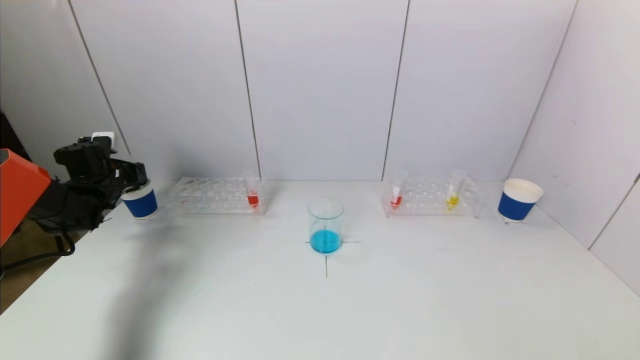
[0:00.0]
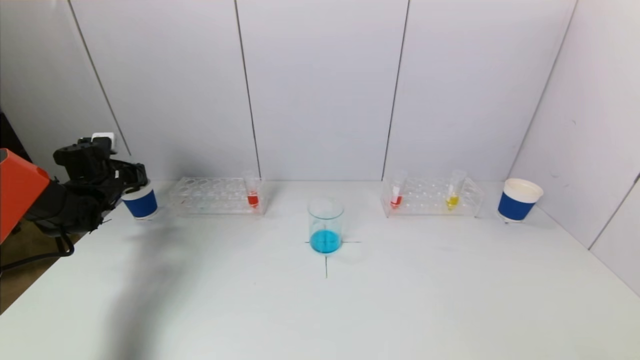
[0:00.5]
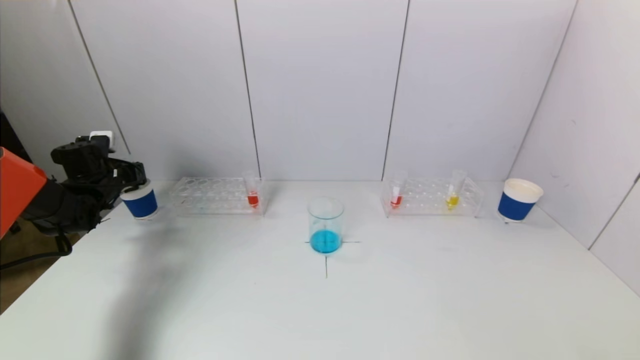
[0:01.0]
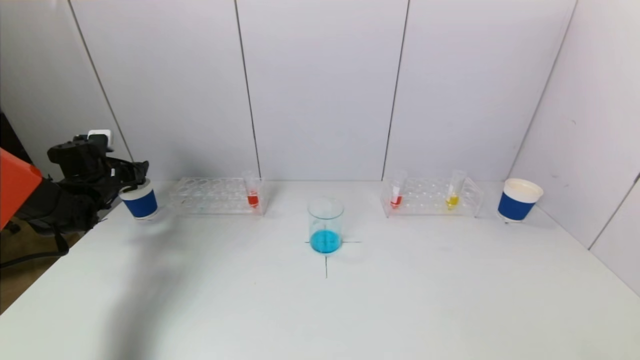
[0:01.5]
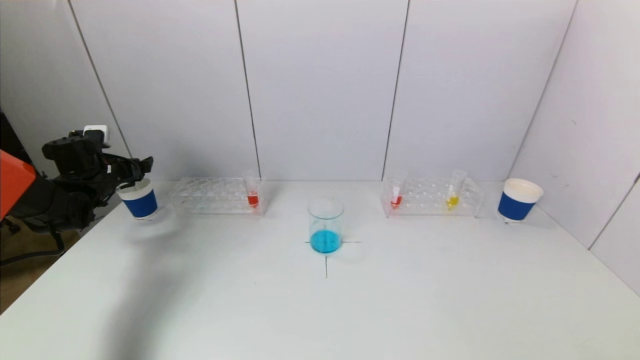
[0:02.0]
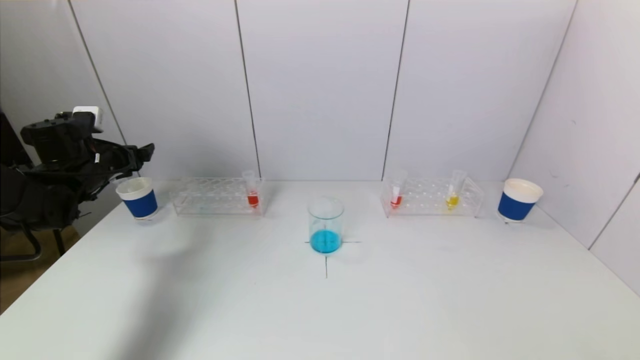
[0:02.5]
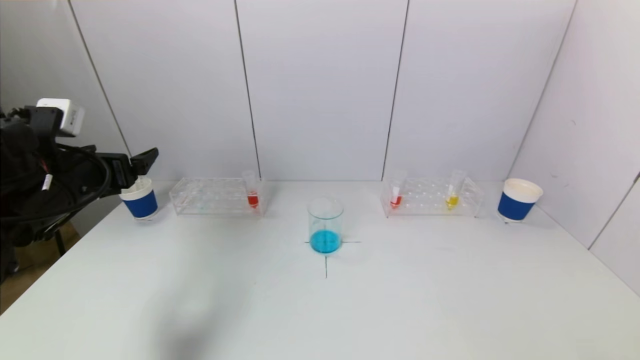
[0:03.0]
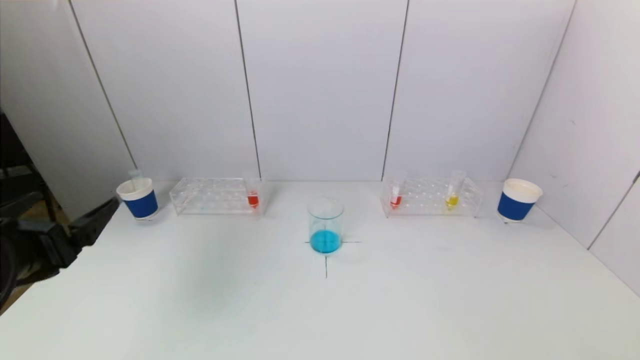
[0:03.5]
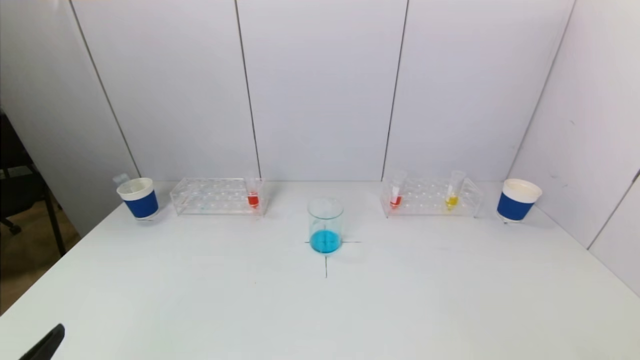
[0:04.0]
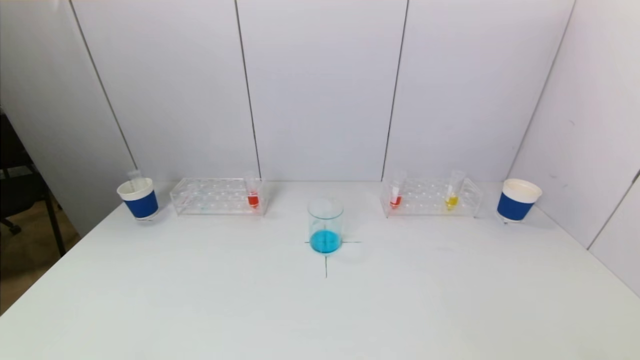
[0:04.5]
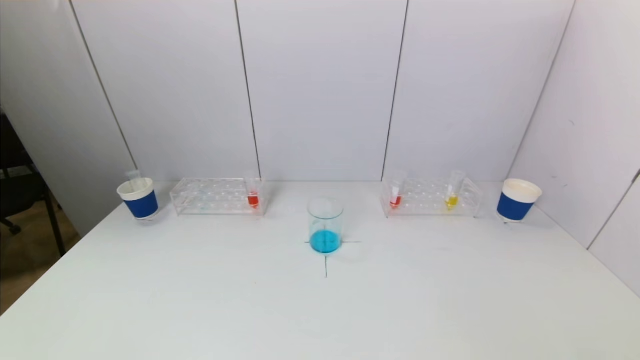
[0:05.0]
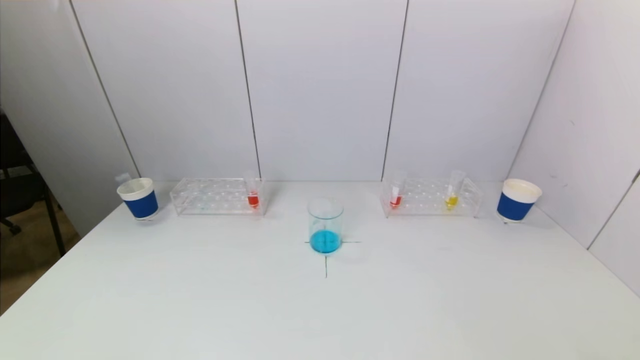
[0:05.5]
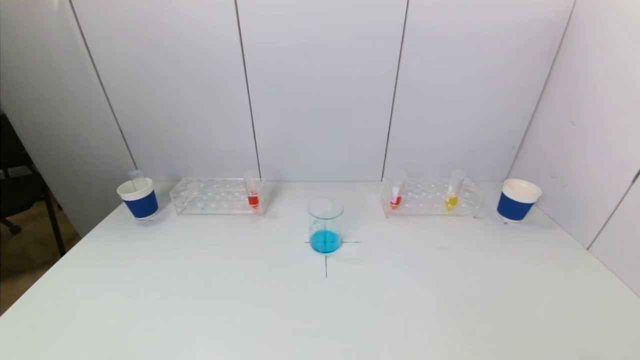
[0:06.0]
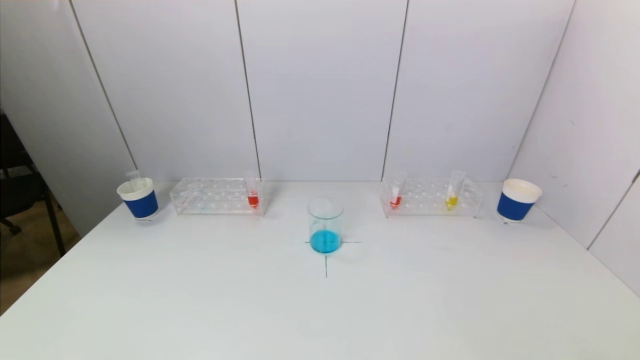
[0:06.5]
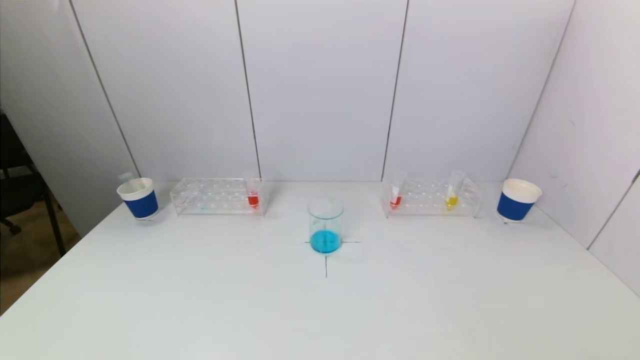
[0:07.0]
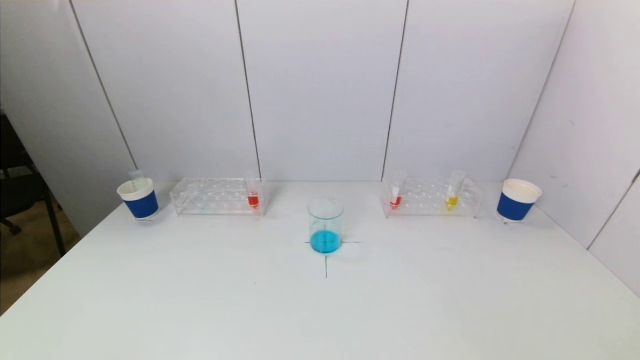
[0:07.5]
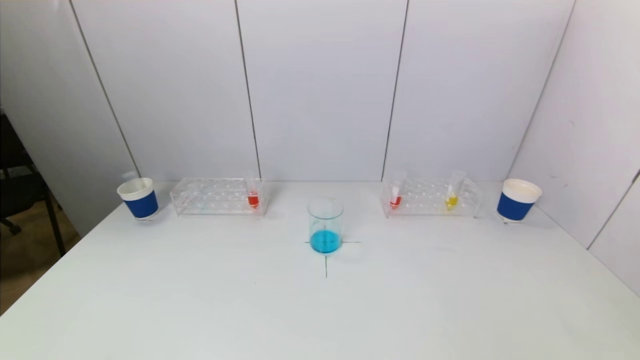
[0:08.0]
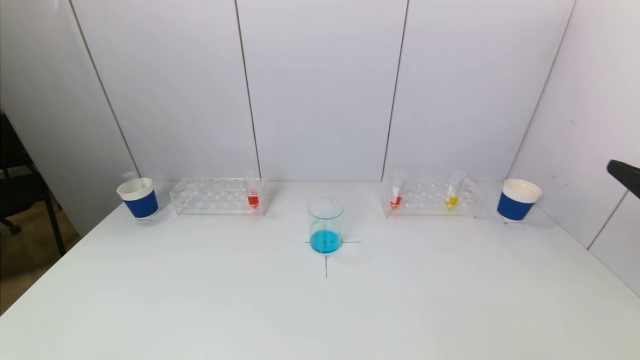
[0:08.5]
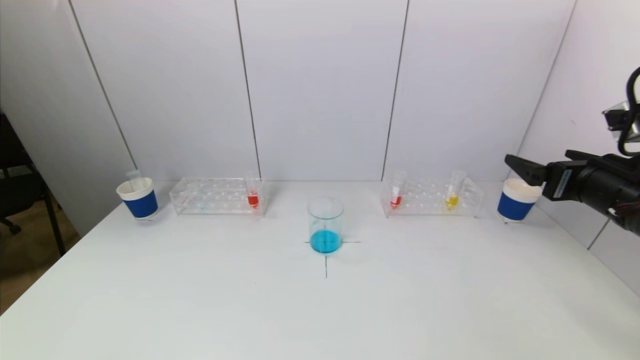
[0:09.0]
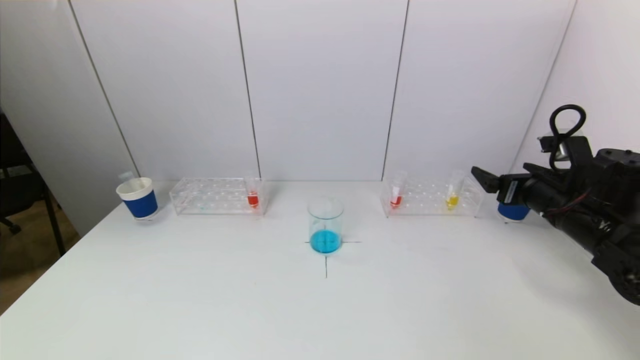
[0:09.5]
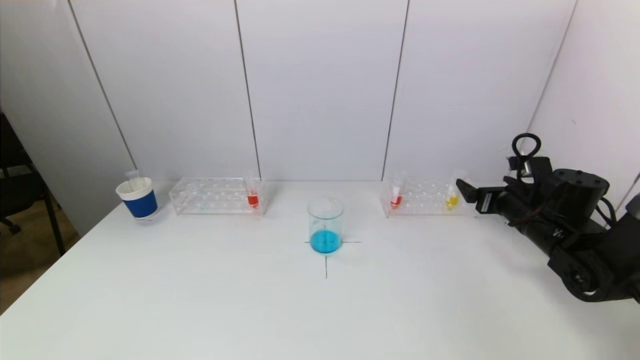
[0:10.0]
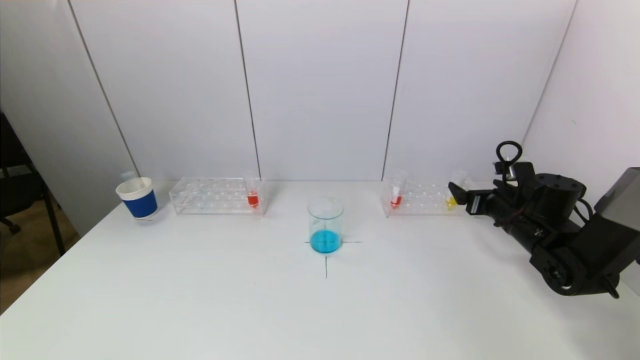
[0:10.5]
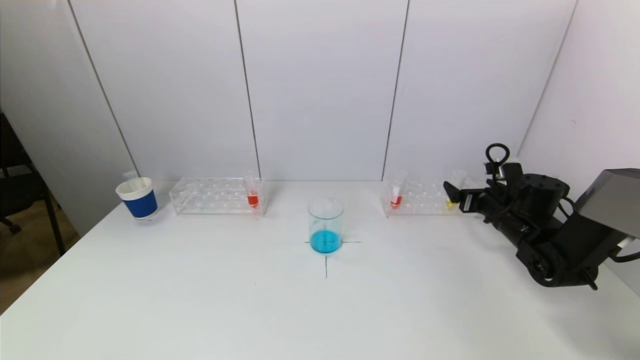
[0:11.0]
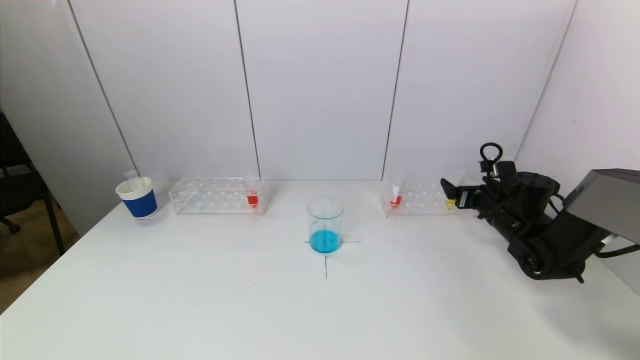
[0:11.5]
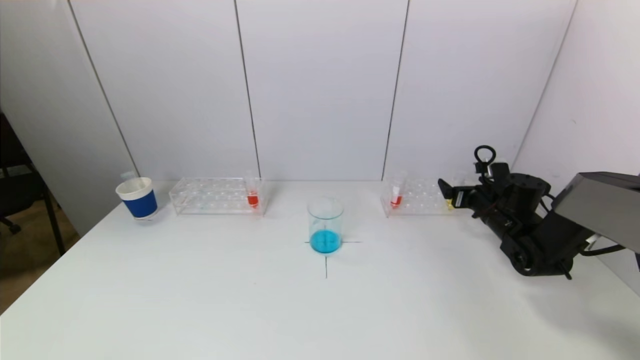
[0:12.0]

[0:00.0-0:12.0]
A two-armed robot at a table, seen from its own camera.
Task of the whole recording: pick up a test tube with pigment on left test tube rack and a test tube with pigment on right test tube rack by grippers and pour them into the beaker.
0:00.0 to 0:02.0: The left gripper opens up.
0:02.0 to 0:04.0: The left gripper goes about 40 cm backward.
0:08.0 to 0:10.0: The right gripper shifts roughly 35 cm forward and downward.
0:10.0 to 0:12.0: The right gripper travels forward and downward by roughly 10 cm.

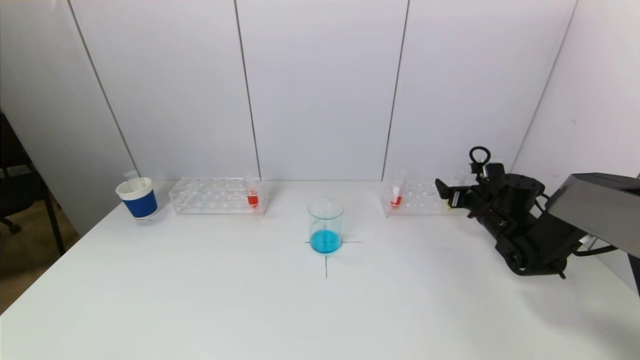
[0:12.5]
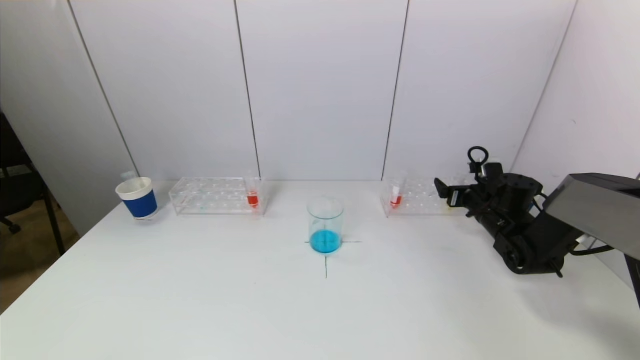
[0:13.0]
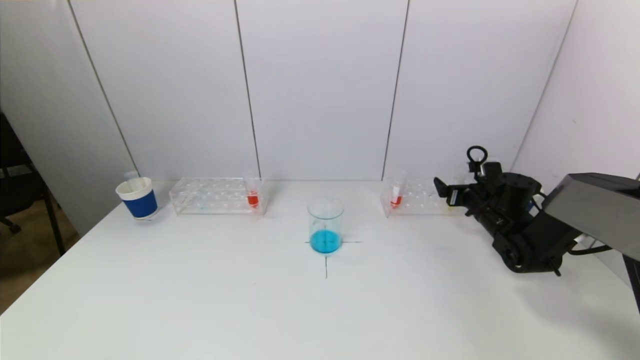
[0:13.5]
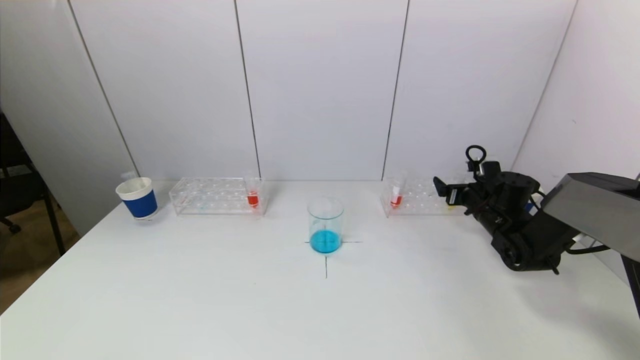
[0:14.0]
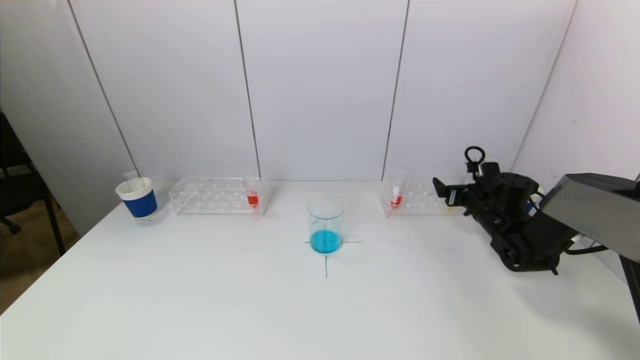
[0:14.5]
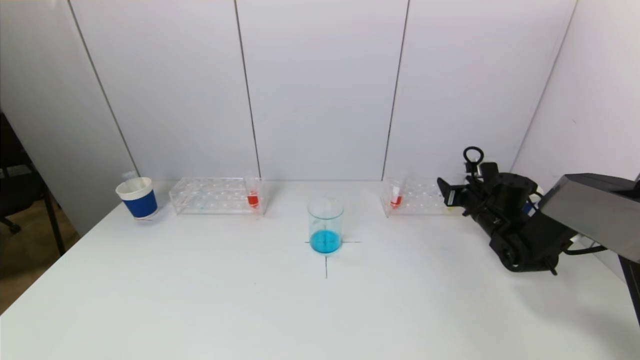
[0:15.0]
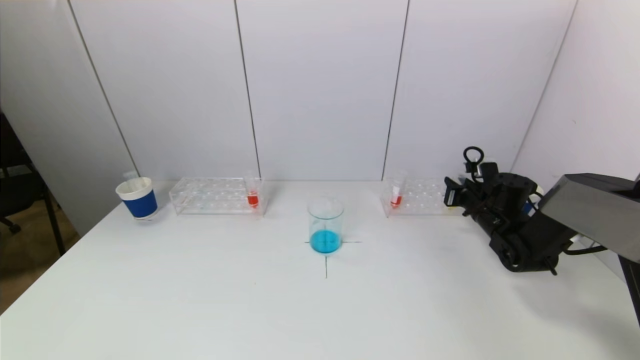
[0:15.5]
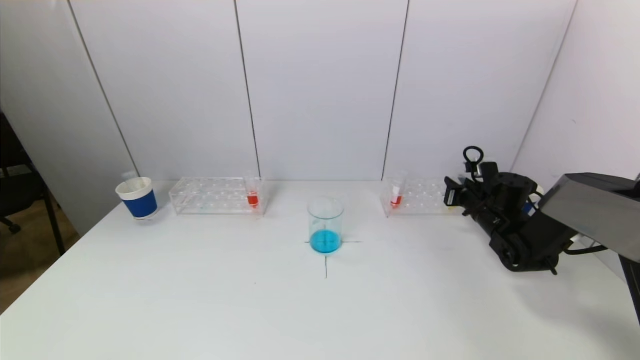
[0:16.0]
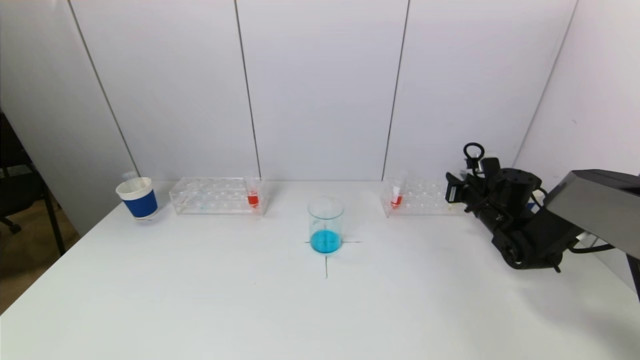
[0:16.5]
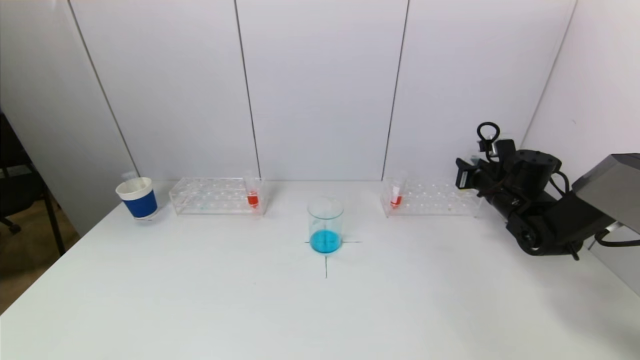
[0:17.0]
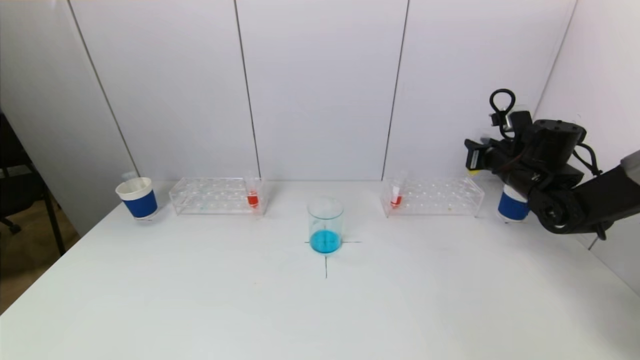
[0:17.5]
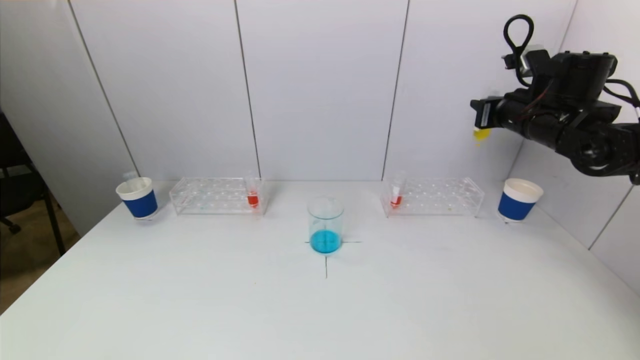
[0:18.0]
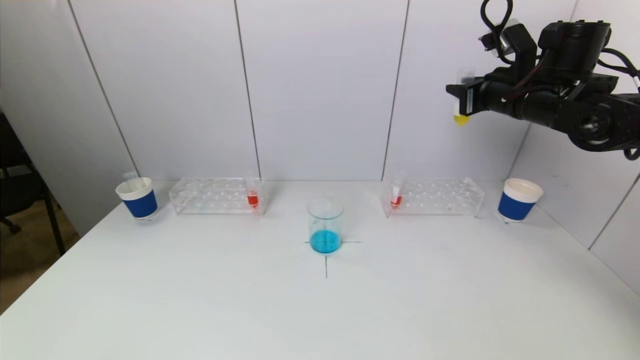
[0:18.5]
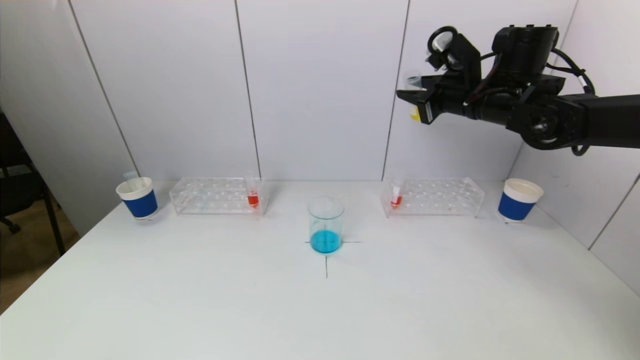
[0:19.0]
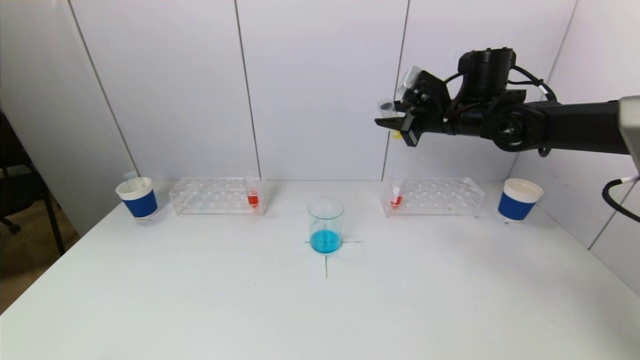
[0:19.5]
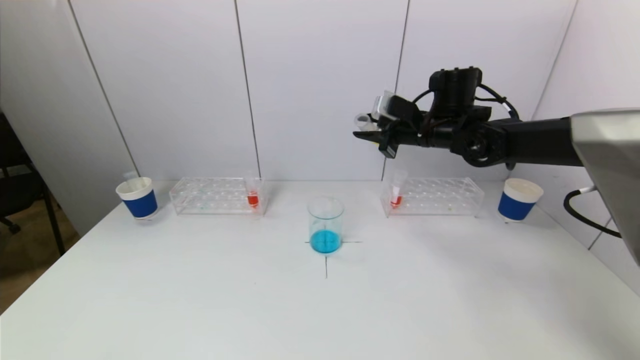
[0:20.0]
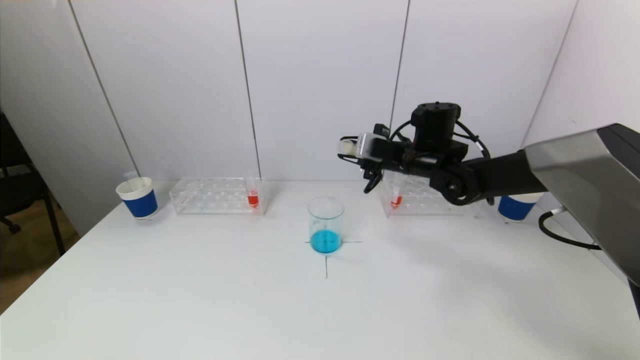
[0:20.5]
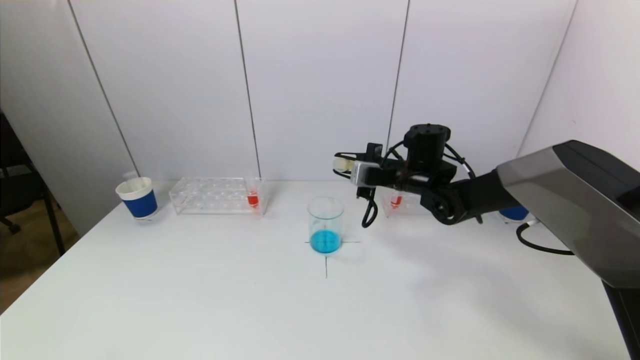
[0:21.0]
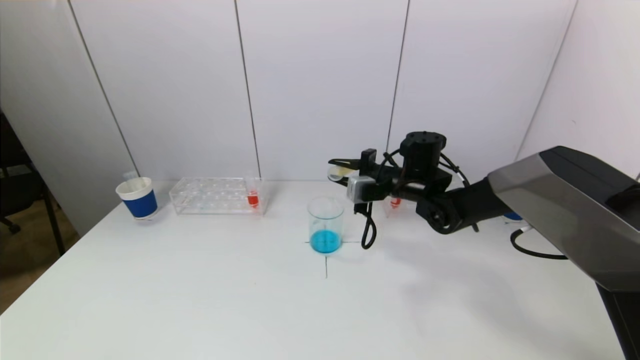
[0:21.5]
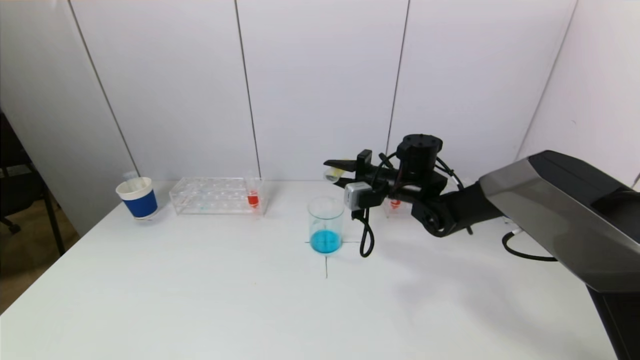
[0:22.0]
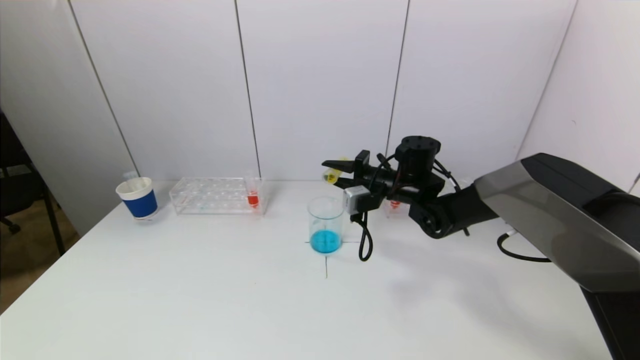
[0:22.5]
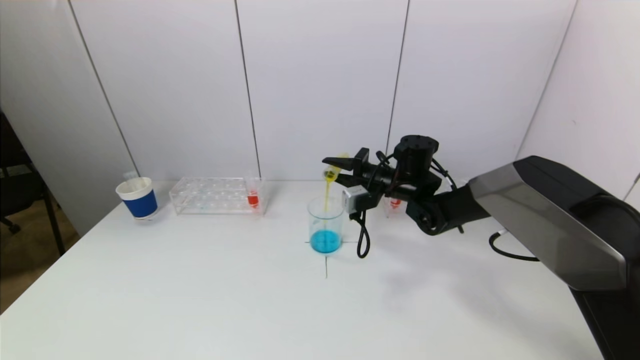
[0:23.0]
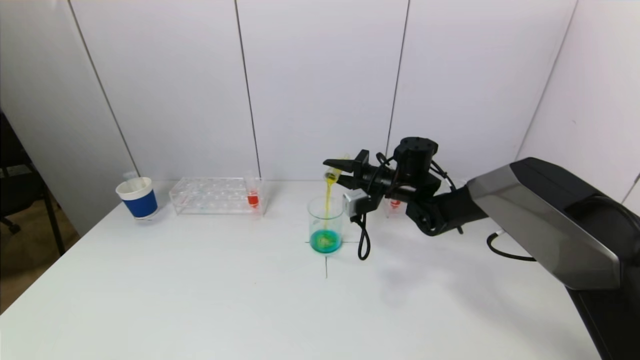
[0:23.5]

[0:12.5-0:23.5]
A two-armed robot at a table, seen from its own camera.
Task of the whole recording: pick up a test tube with pigment on left test tube rack and a test tube with pigment on right test tube rack by grippers and pour them into the beaker.
0:12.5 to 0:14.5: Both grippers stay put.
0:16.0 to 0:18.0: The right gripper heads upward, covering about 20 cm.
0:18.0 to 0:20.0: The right gripper shifts approximately 15 cm to the left.
0:20.0 to 0:21.5: The right gripper moves downward, roughly 10 cm.
0:21.5 to 0:23.5: The grippers move only a little.
